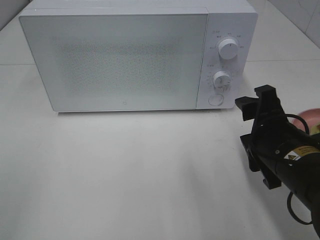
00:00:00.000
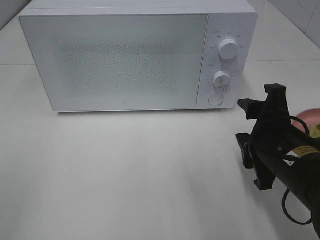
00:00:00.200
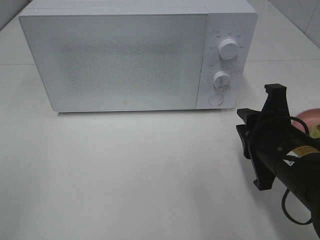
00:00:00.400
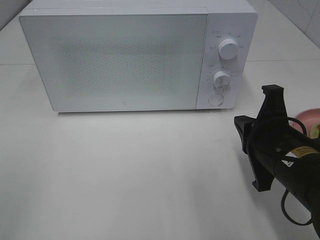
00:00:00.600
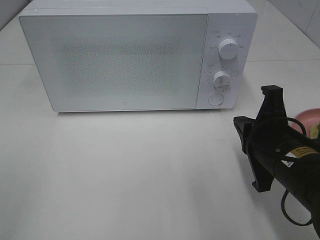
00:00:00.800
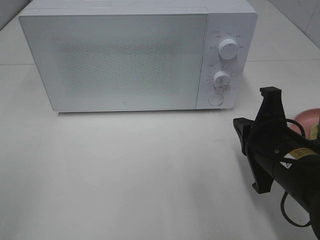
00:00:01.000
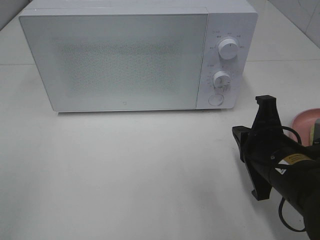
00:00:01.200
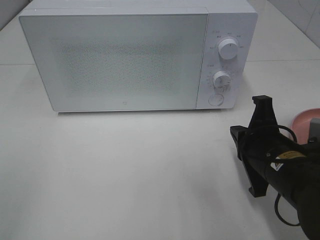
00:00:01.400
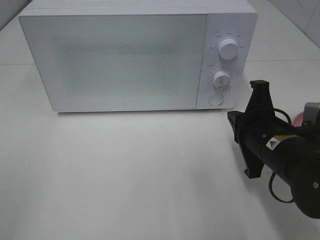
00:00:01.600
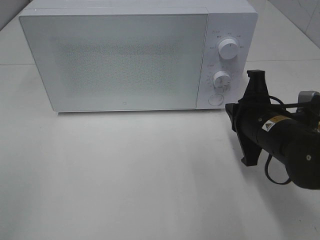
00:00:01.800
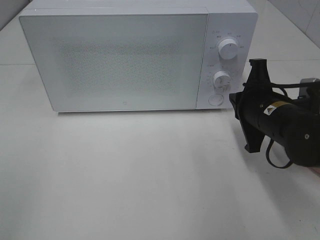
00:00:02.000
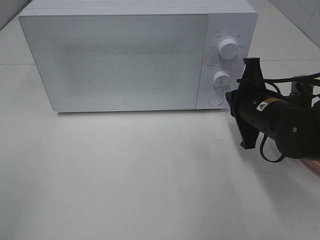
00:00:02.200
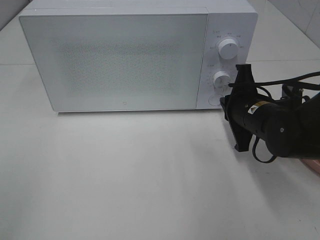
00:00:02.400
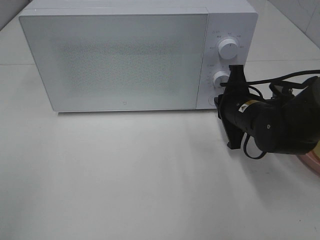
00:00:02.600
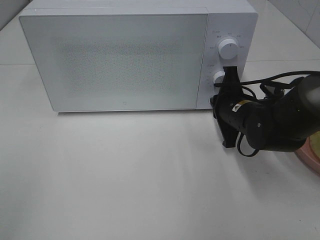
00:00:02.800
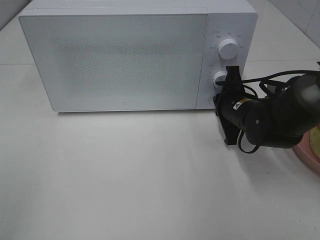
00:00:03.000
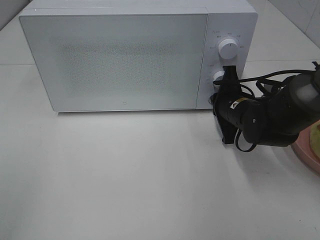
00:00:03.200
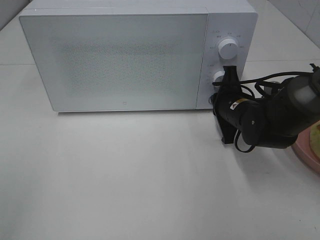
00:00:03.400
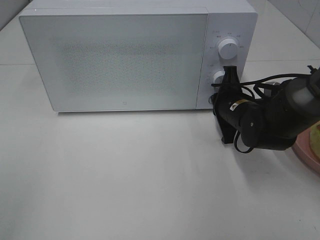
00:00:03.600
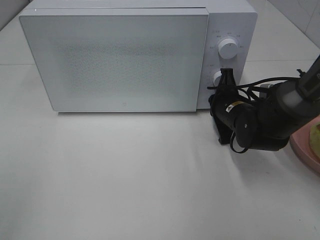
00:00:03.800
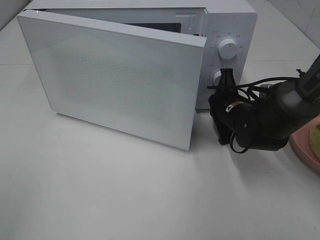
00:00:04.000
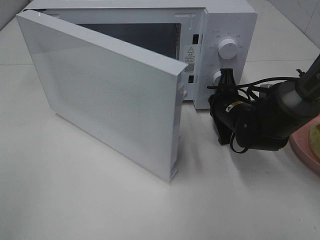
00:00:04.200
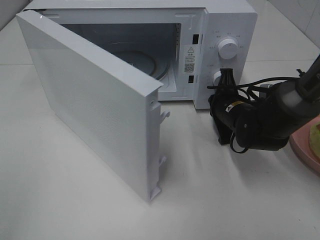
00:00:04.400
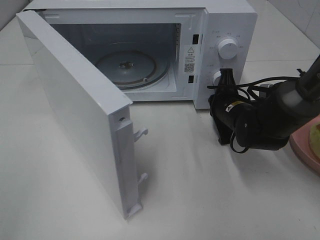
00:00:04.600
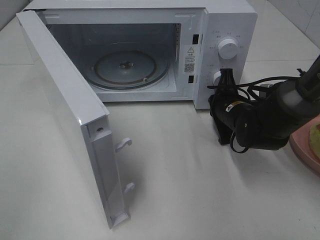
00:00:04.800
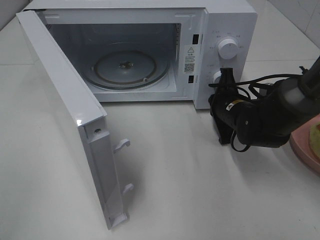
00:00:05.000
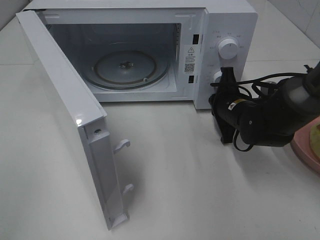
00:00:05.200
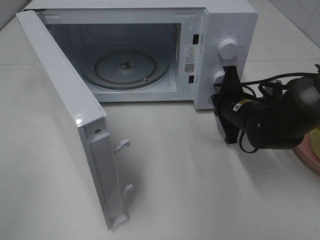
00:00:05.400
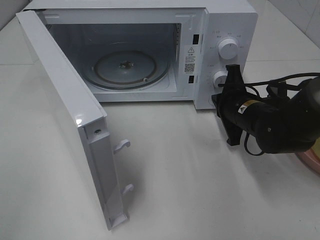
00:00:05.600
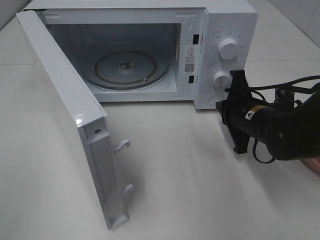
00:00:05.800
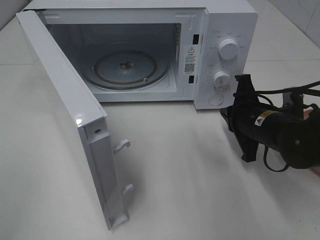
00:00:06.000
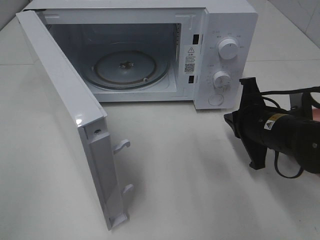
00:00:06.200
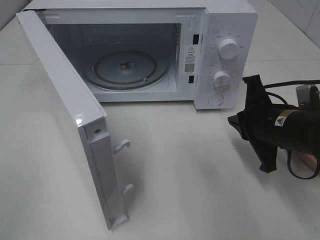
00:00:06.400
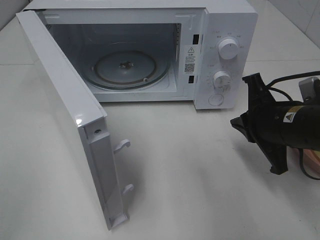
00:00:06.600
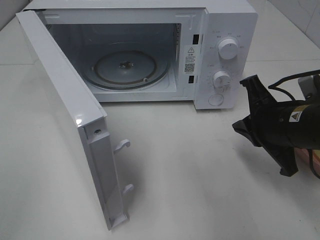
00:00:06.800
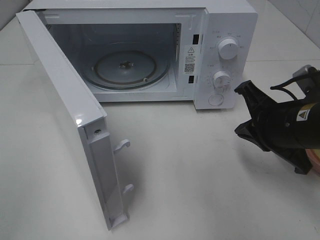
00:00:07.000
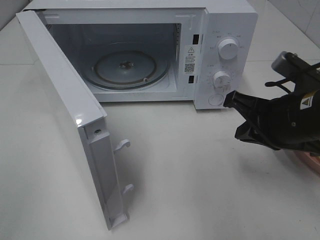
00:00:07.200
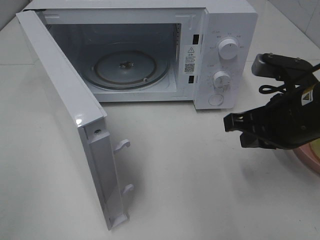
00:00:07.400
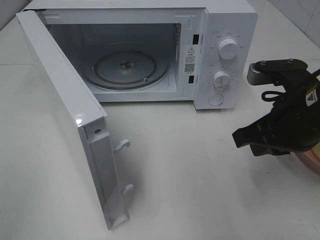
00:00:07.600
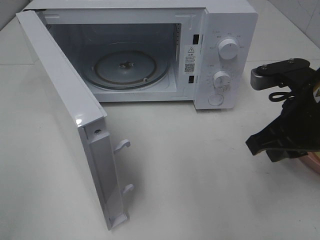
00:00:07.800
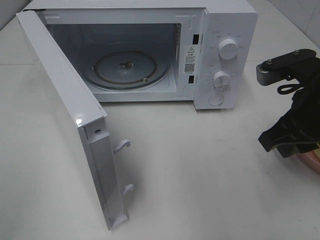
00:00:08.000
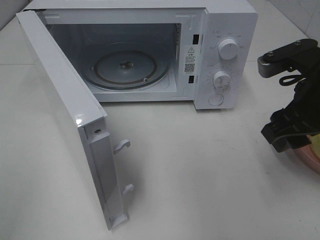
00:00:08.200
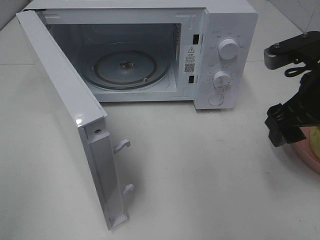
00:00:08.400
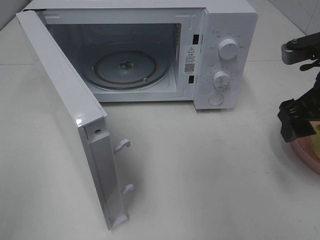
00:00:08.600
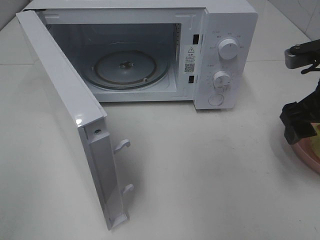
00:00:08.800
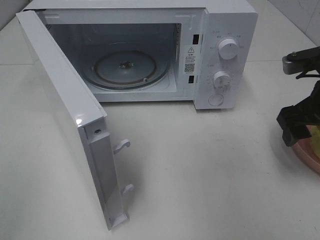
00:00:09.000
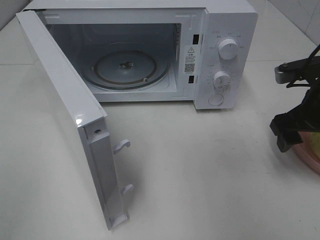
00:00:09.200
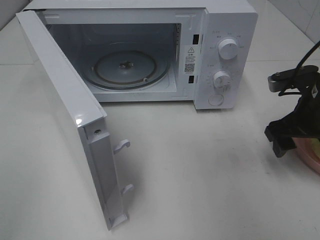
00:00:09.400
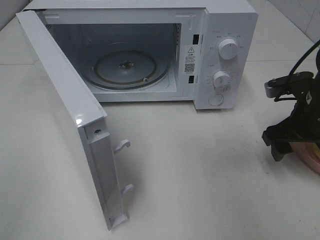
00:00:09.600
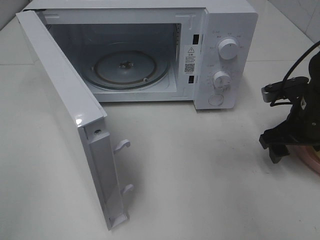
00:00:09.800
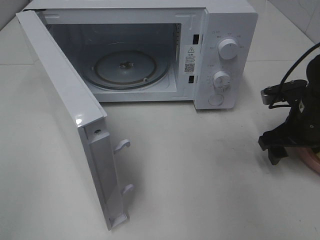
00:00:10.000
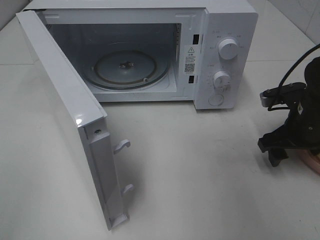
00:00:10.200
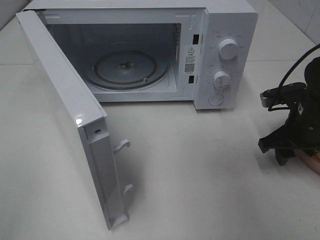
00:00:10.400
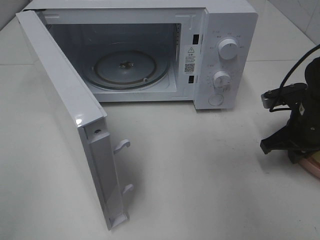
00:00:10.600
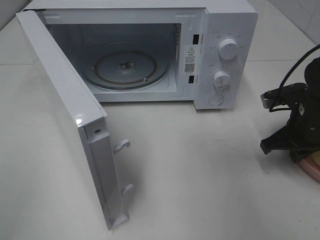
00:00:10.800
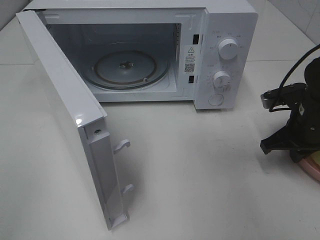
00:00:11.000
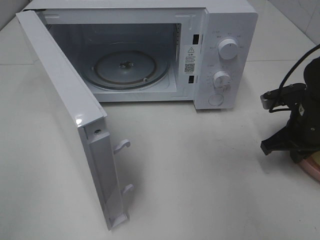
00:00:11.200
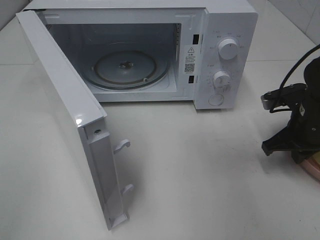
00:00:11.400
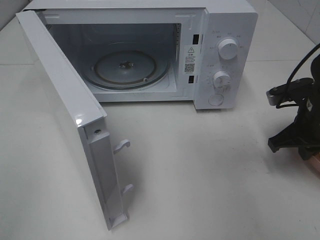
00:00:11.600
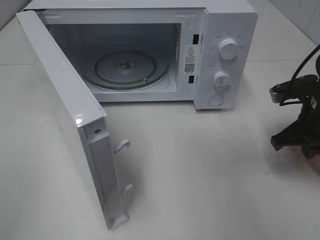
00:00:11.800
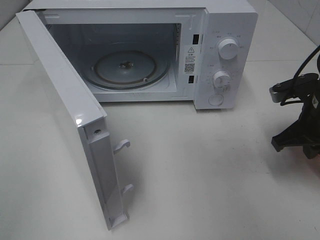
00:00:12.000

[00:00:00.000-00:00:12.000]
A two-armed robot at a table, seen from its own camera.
Task of the whole recording: Heat Sandwich.
Step, 00:00:00.000 to 00:00:05.400: Right hand: press the switch.
Step, 00:00:05.600 to 00:00:10.800: Right hand: grab the plate with the sandwich.
00:00:00.000 to 00:00:01.600: The right gripper closes.
00:00:01.600 to 00:00:03.000: The right gripper shifts some 10 cm forward.
00:00:04.400 to 00:00:06.000: The right gripper heads backward, covering some 5 cm.
00:00:06.000 to 00:00:07.600: The right gripper heads upward and backward, covering approximately 10 cm.
00:00:07.600 to 00:00:09.000: The right gripper is displaced to the right by some 5 cm, and opens its fingers.
00:00:09.000 to 00:00:10.400: The right gripper is displaced downward by some 10 cm.
00:00:10.400 to 00:00:12.000: The right gripper closes its fingers.

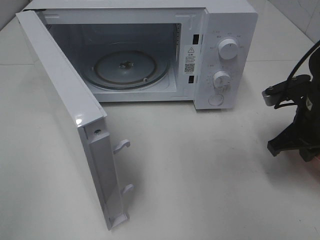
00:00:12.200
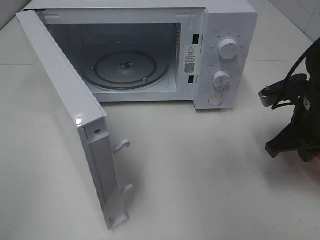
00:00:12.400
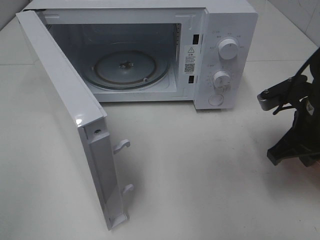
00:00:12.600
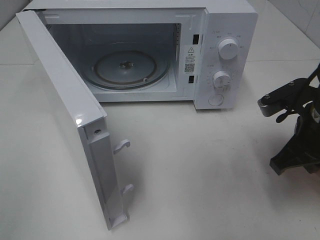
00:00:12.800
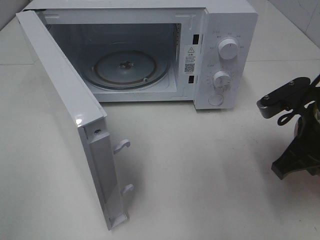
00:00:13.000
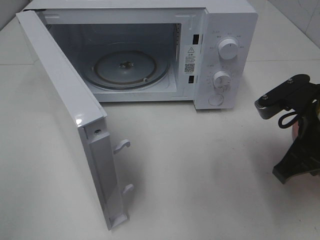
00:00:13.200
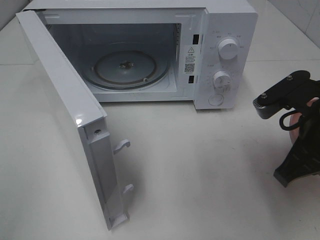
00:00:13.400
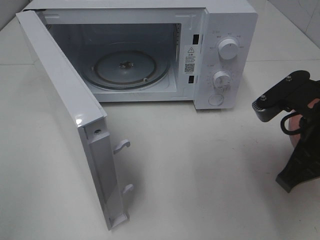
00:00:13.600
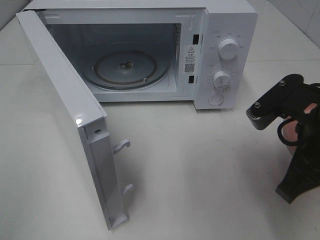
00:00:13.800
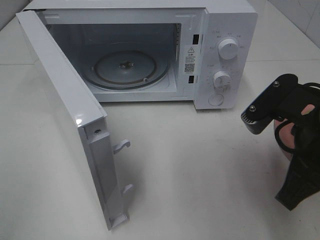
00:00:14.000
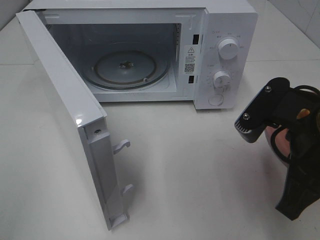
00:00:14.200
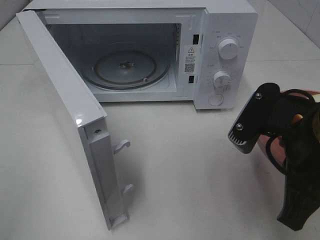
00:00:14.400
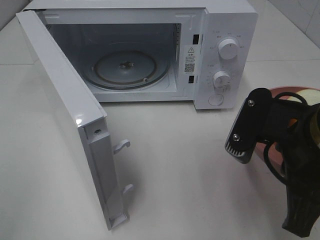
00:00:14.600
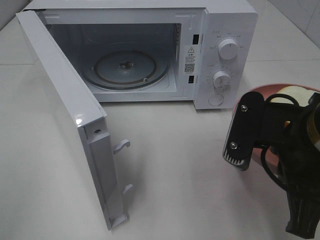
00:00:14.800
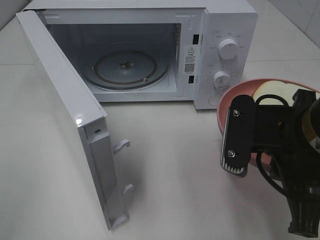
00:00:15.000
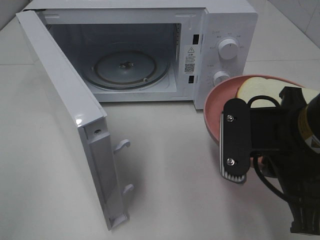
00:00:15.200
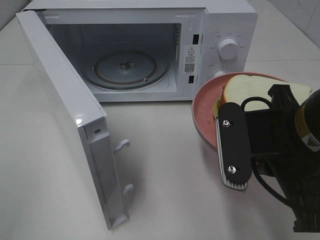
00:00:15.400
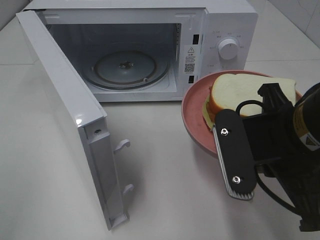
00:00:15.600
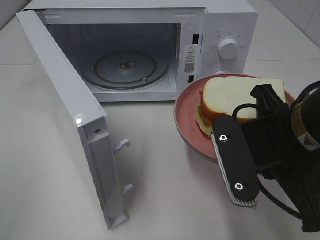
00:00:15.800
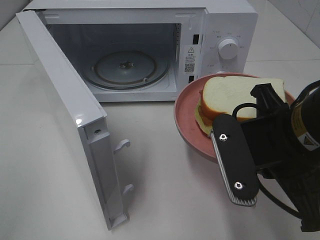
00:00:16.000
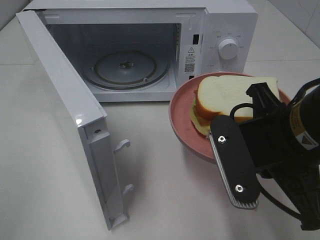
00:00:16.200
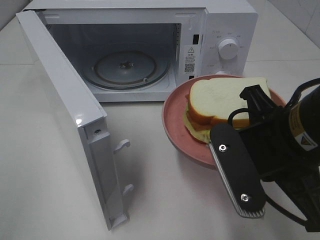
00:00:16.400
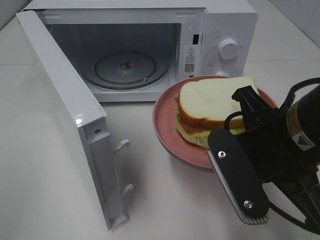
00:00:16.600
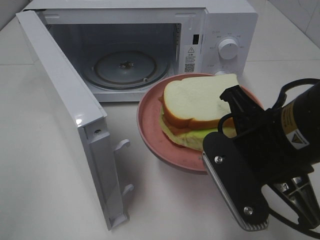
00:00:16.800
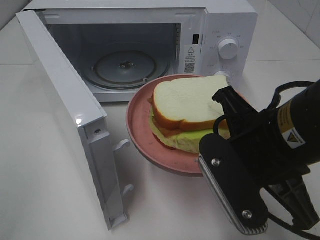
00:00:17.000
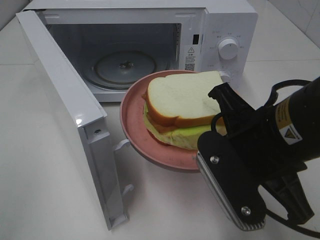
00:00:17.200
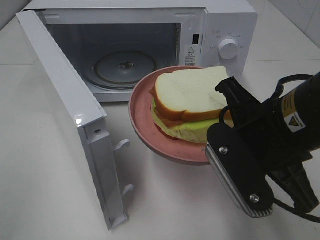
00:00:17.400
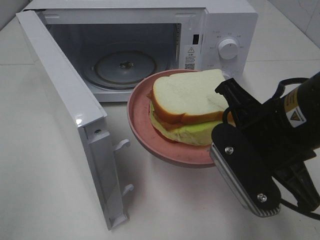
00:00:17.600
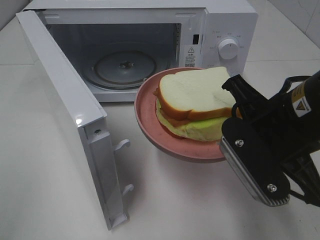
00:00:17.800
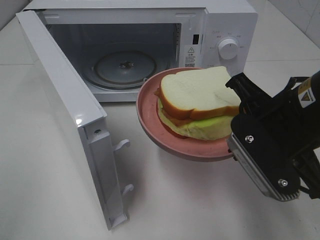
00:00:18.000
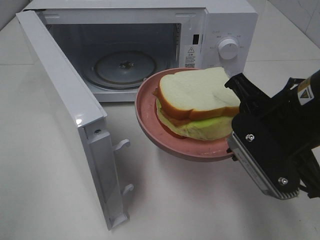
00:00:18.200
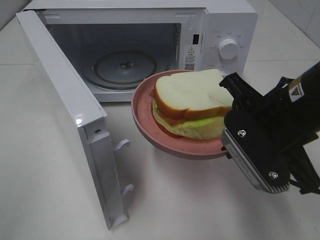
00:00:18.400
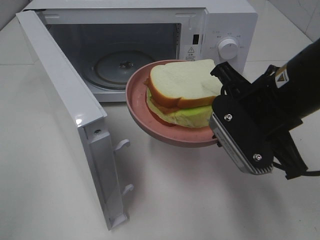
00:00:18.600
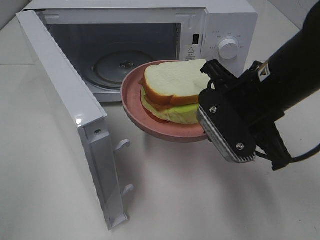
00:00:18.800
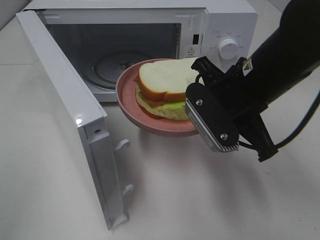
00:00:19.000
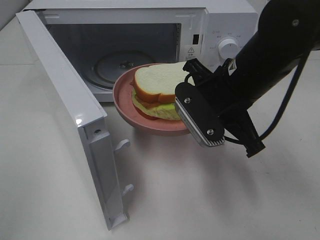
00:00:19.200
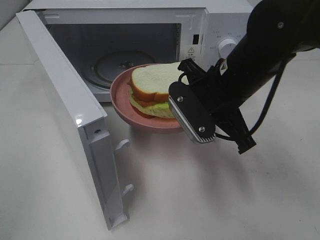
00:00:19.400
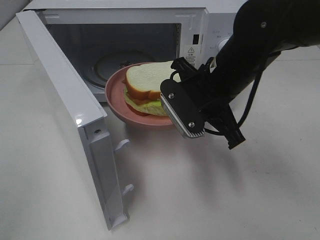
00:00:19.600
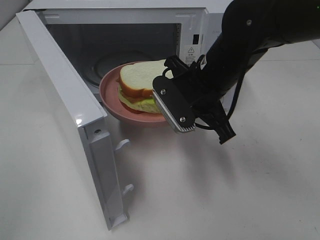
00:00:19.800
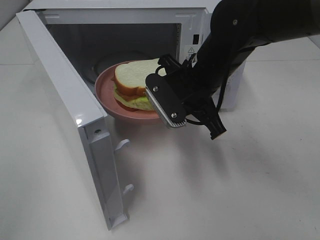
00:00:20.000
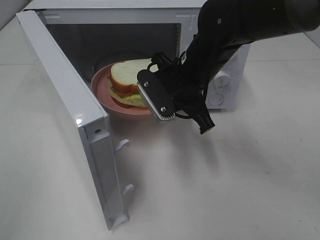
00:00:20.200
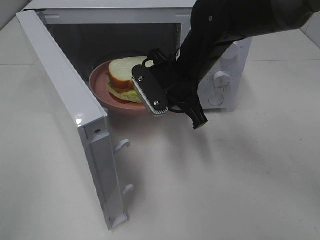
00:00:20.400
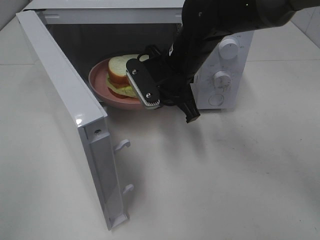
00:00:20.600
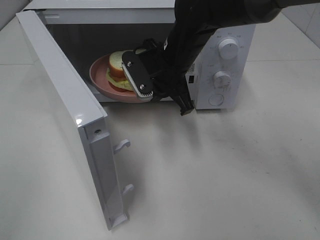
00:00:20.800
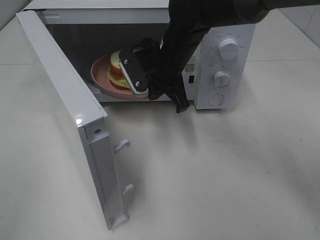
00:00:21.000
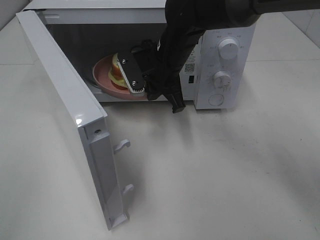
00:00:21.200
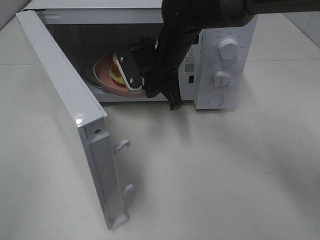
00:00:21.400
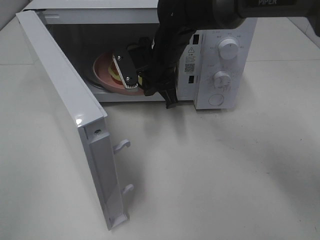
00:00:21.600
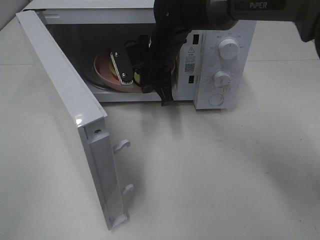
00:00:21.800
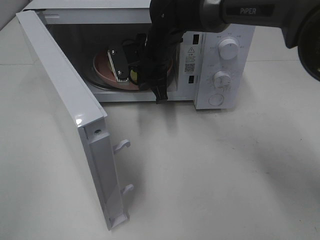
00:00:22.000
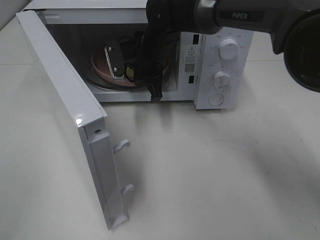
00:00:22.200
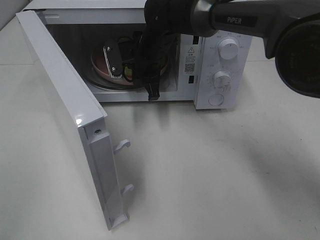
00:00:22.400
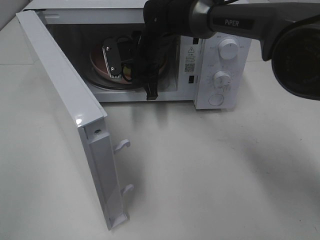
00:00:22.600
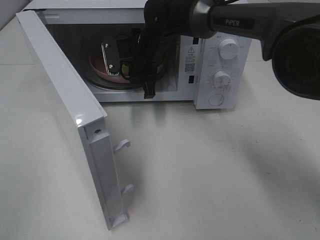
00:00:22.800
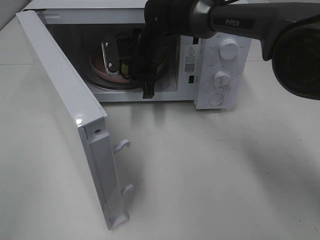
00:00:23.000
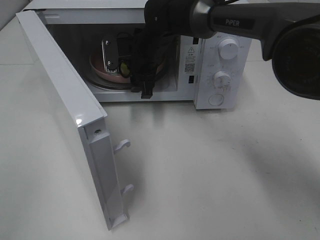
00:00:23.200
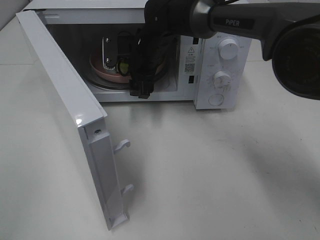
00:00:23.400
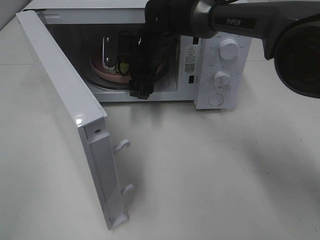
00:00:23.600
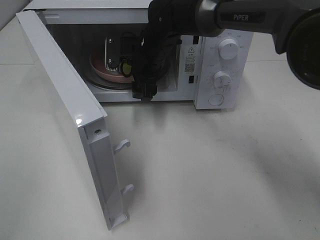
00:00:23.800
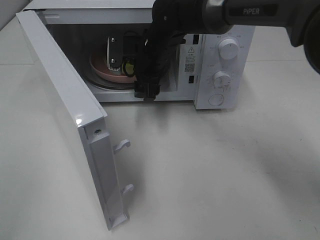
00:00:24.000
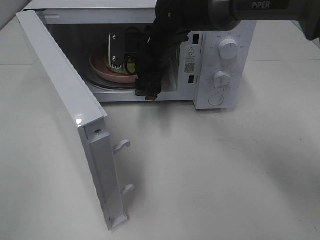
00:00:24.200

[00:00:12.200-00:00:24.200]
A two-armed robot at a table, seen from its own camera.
Task of the whole recording: Heat Sandwich.
00:00:12.200 to 00:00:13.800: The right gripper heads backward, upward and to the left, covering some 15 cm.
00:00:16.600 to 00:00:18.200: The grippers move only a little.
00:00:18.200 to 00:00:19.800: The right gripper goes some 15 cm forward and to the left.
00:00:19.800 to 00:00:21.200: The right gripper goes approximately 10 cm forward and to the left.
00:00:21.200 to 00:00:22.600: The right gripper heads forward, covering approximately 5 cm.
00:00:22.600 to 00:00:24.200: The right gripper opens its fingers.
